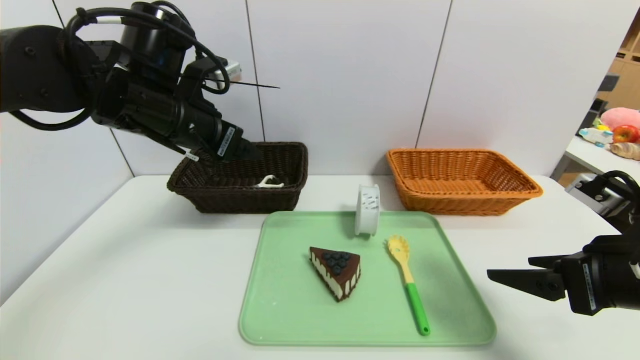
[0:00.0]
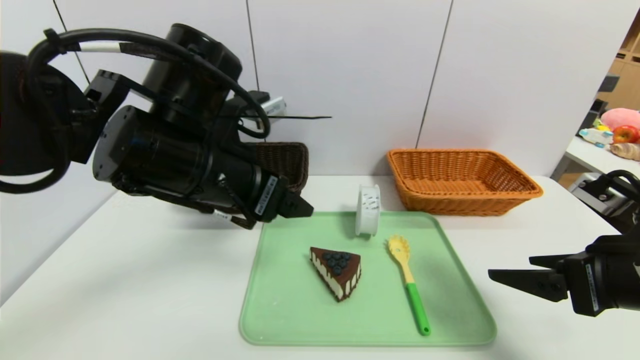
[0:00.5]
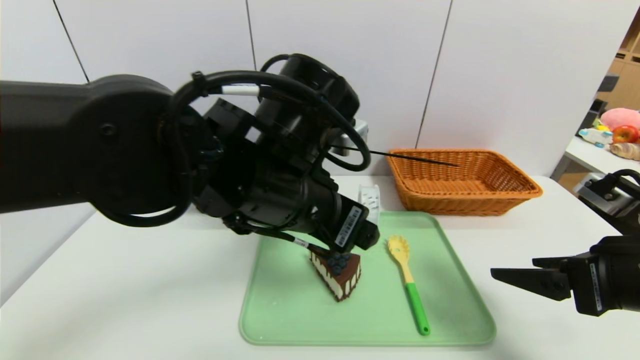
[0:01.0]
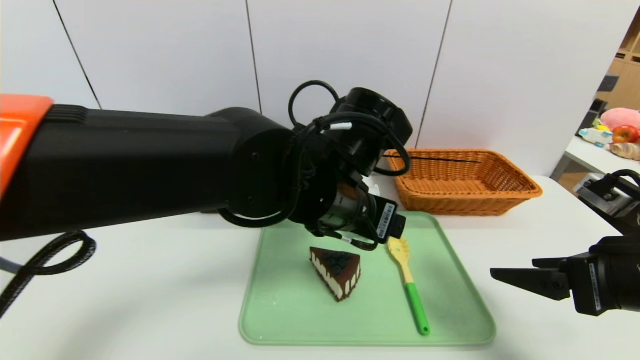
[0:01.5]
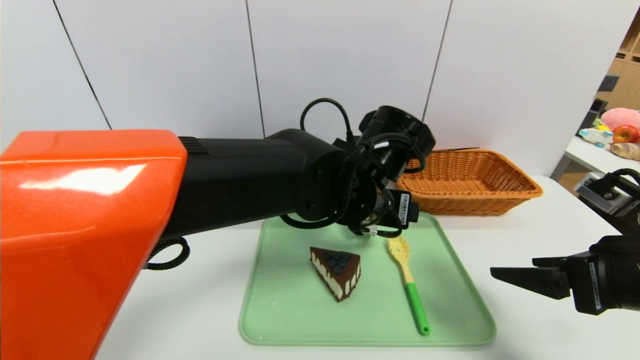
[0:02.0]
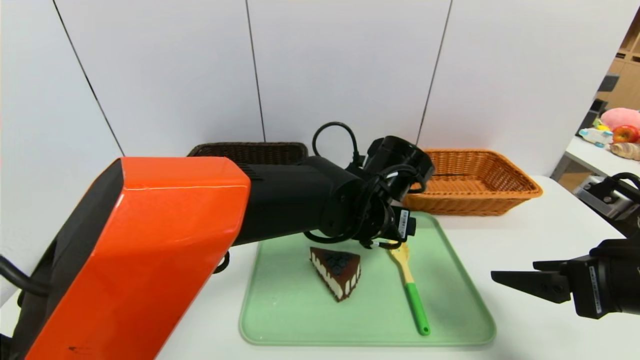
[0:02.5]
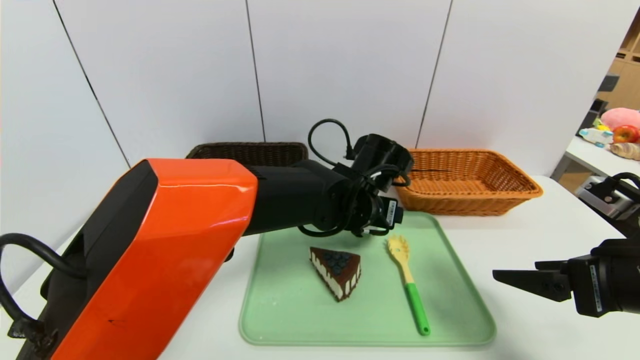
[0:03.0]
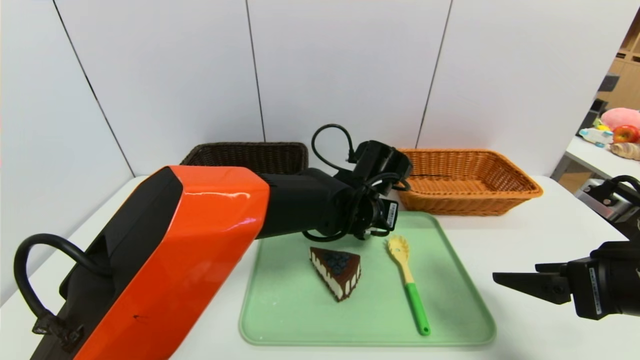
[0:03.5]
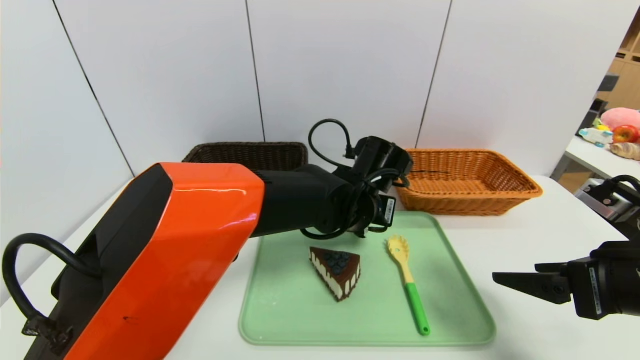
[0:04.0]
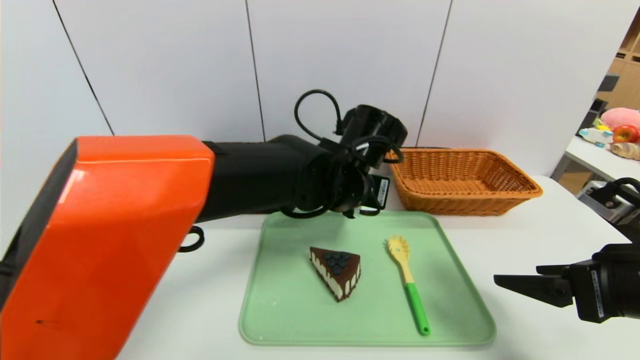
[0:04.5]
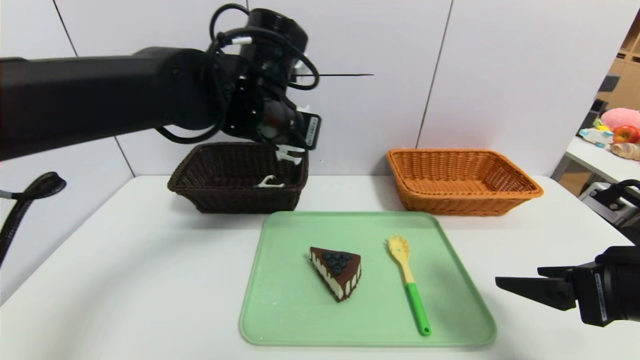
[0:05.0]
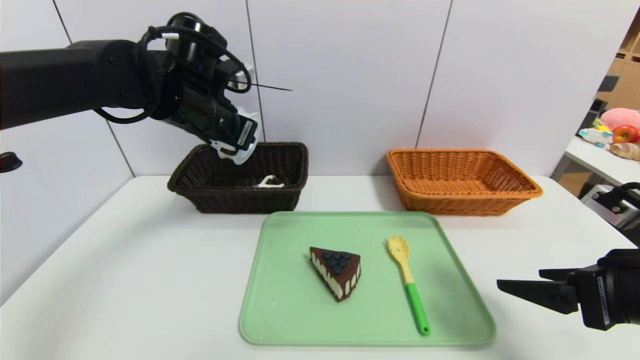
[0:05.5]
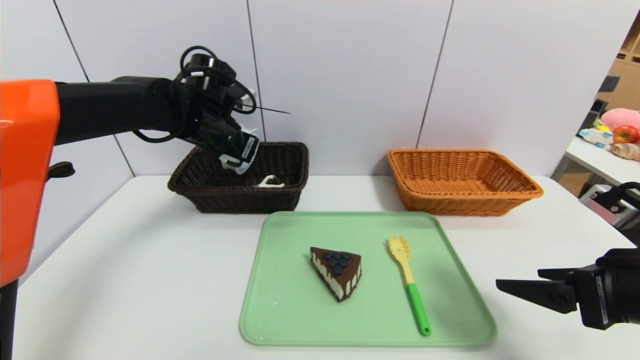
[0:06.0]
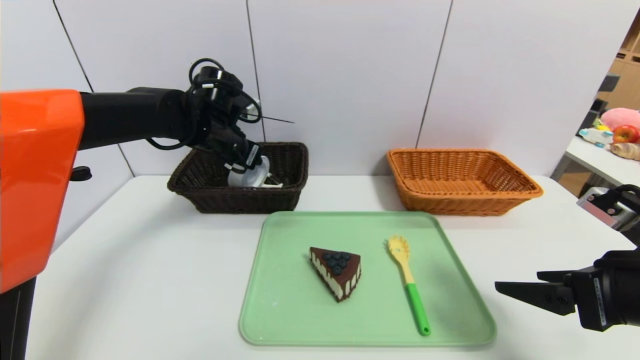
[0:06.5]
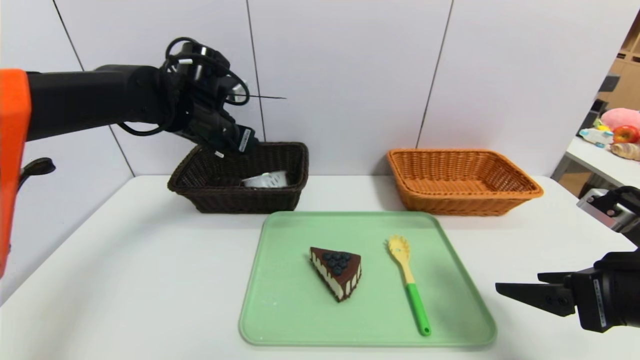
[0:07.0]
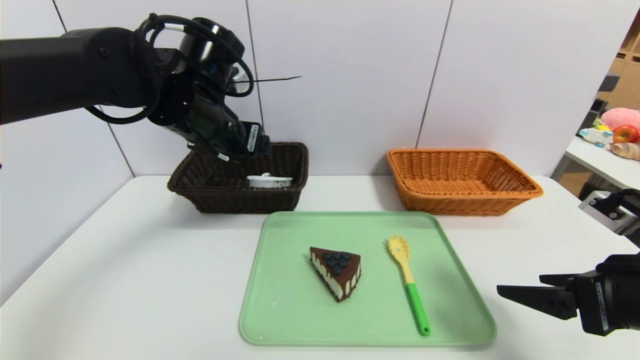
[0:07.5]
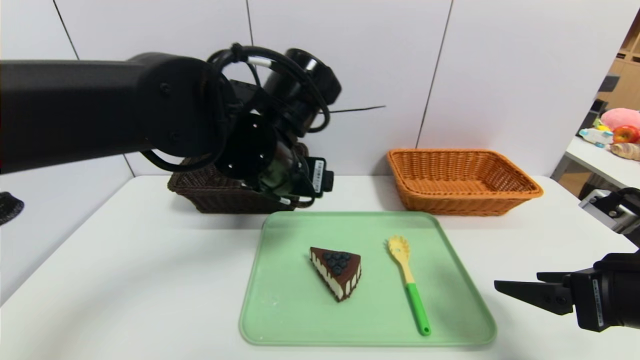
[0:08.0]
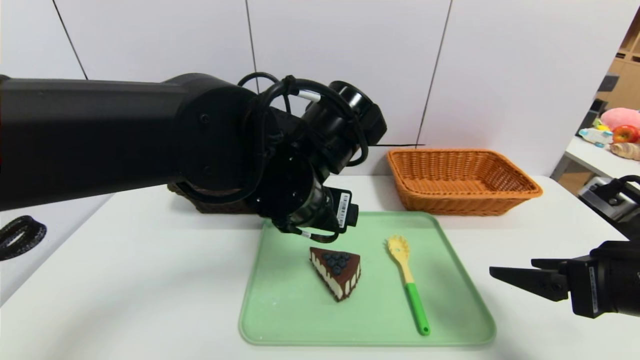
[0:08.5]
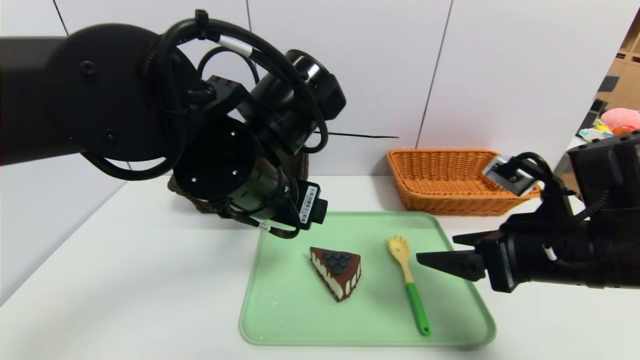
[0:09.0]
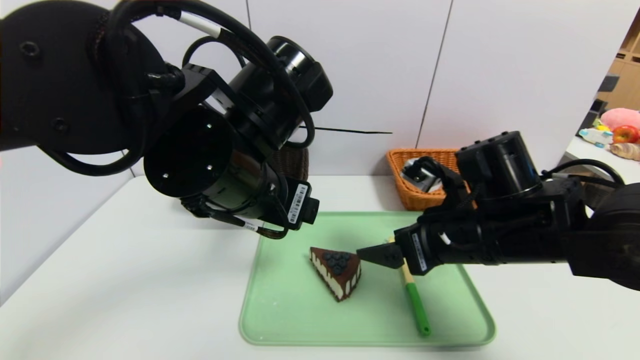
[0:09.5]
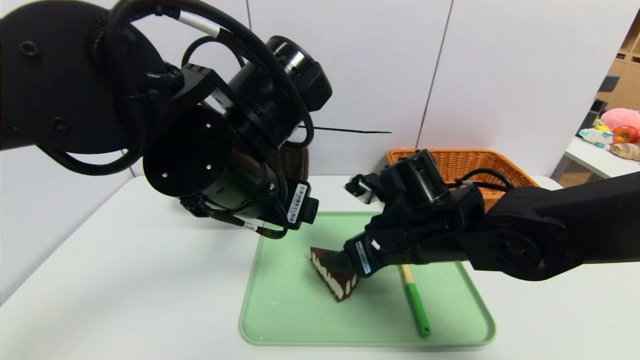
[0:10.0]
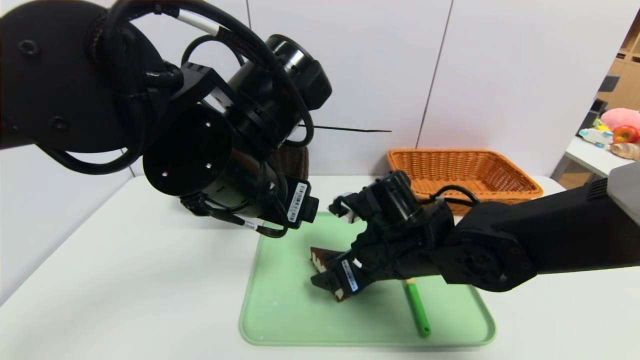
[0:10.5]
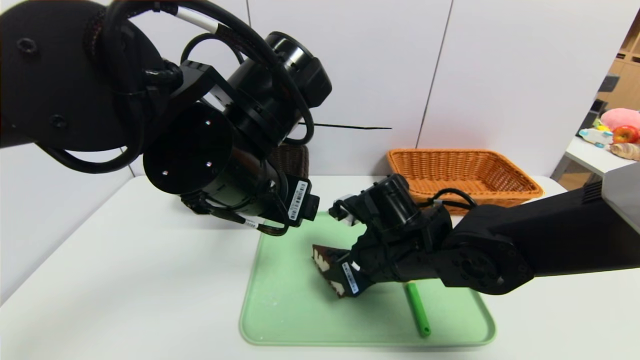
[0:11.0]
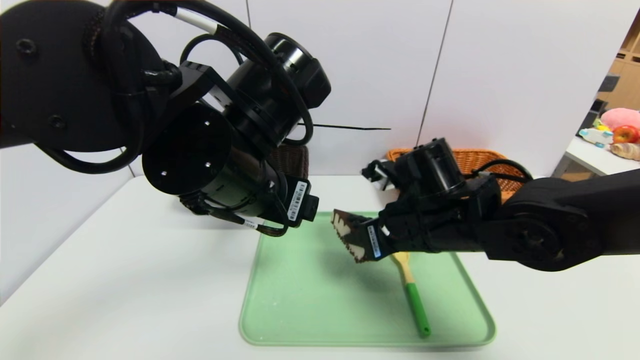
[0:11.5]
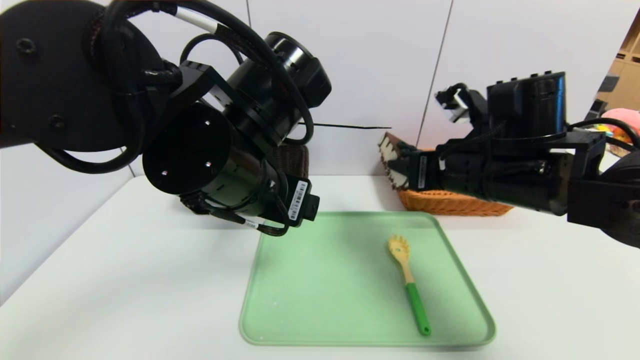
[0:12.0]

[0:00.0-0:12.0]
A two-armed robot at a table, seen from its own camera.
Task of the whole recording: place the food in the right basket with the right gripper, and place the non food items in the left basket with the left gripper.
Step, 0:00.0 to 0:07.0: Grasp the tape and put it in the left basket.
0:00.0 to 0:02.0: The left gripper shifts some 25 cm to the right.
0:02.0 to 0:04.0: The left gripper goes about 5 cm forward and downward, and closes its fingers.
0:04.0 to 0:06.0: The left gripper travels to the left by about 25 cm.
0:06.0 to 0:08.0: The left gripper heads backward and to the right, covering approximately 20 cm, and opens its fingers.
0:08.0 to 0:10.0: The left gripper changes place by about 5 cm; the right gripper is displaced to the left and forward by some 25 cm.
0:10.0 to 0:12.0: The right gripper heads upward and to the right, covering approximately 10 cm, and closes.

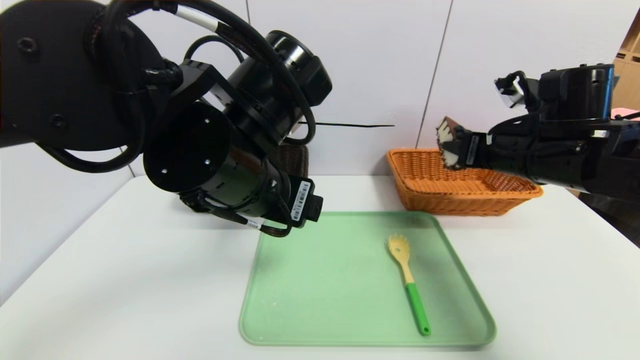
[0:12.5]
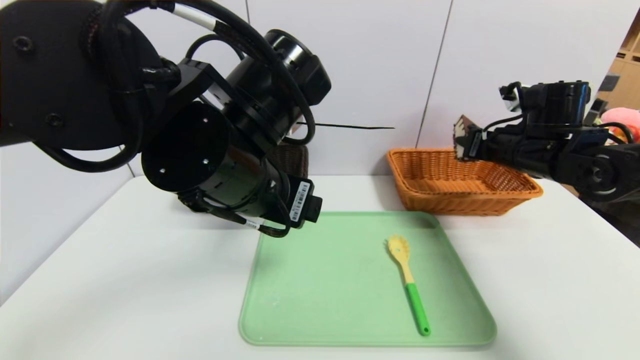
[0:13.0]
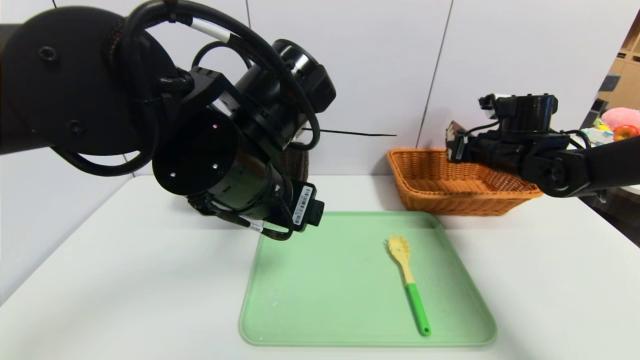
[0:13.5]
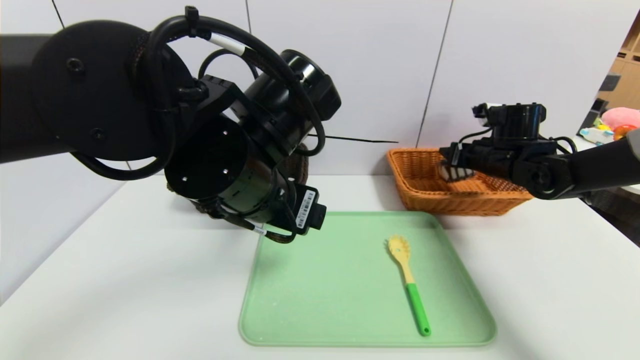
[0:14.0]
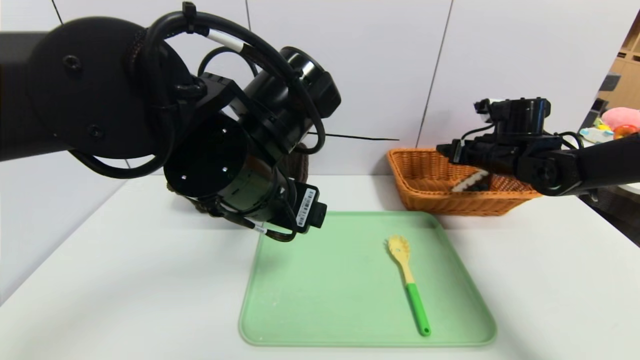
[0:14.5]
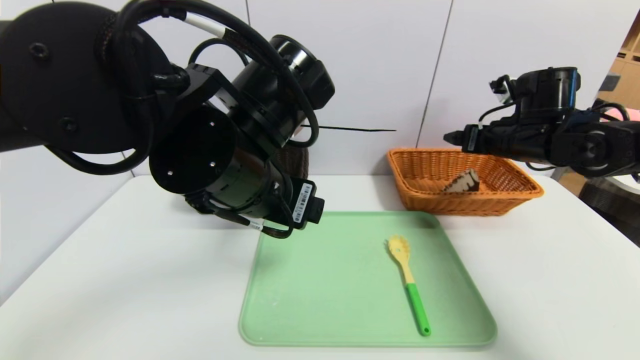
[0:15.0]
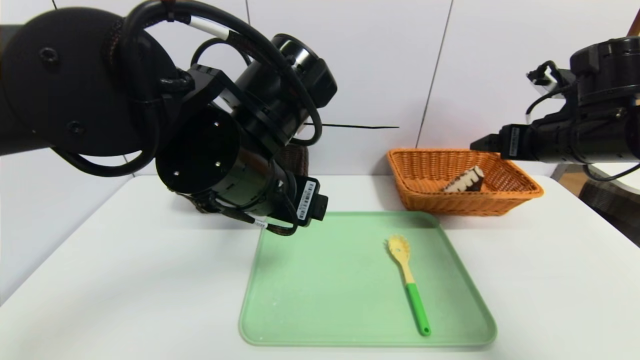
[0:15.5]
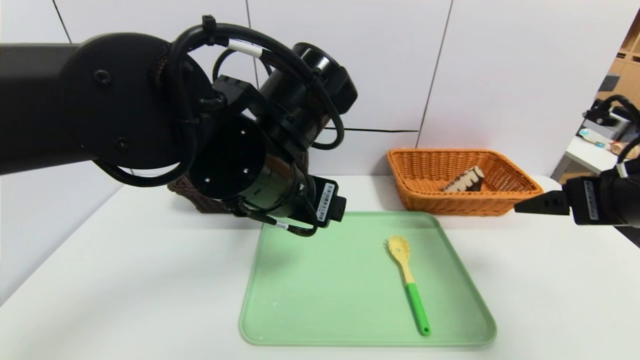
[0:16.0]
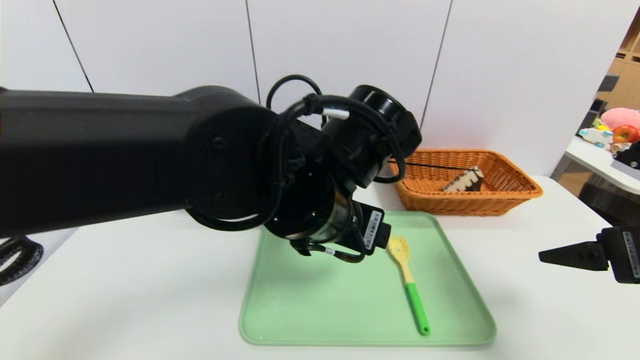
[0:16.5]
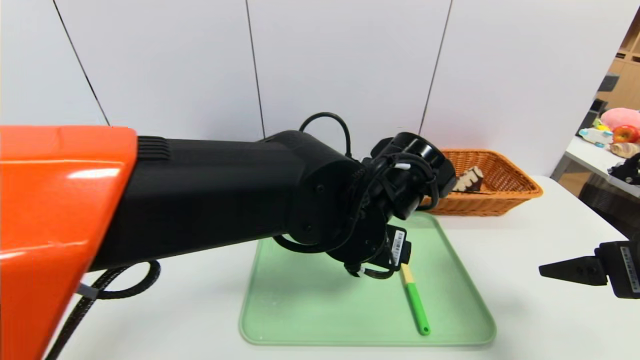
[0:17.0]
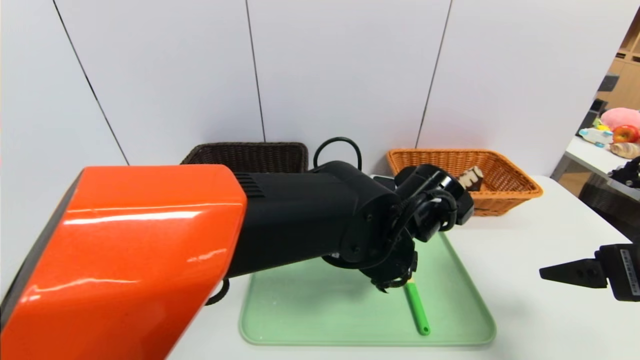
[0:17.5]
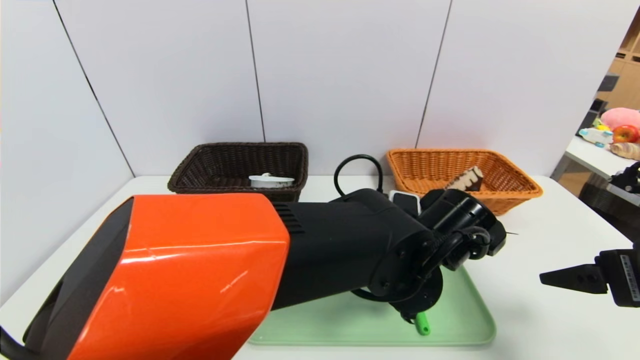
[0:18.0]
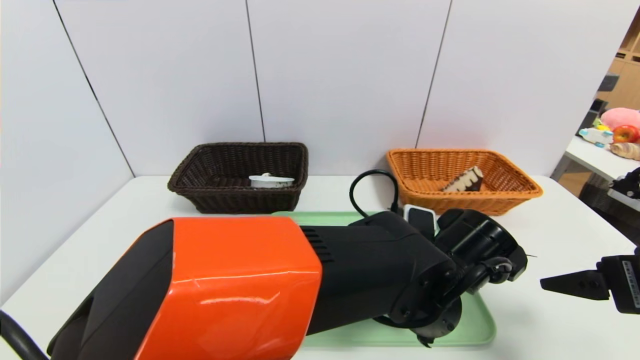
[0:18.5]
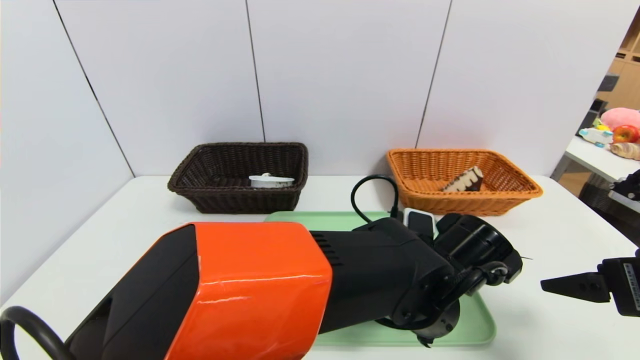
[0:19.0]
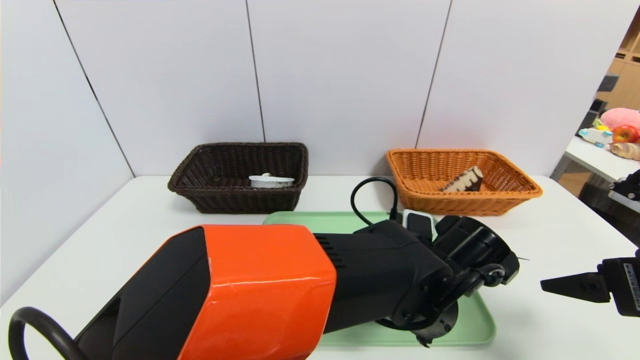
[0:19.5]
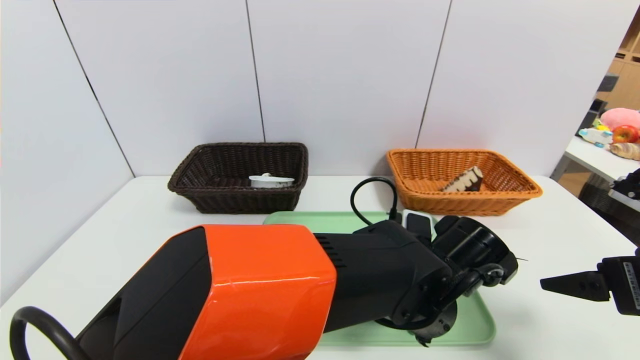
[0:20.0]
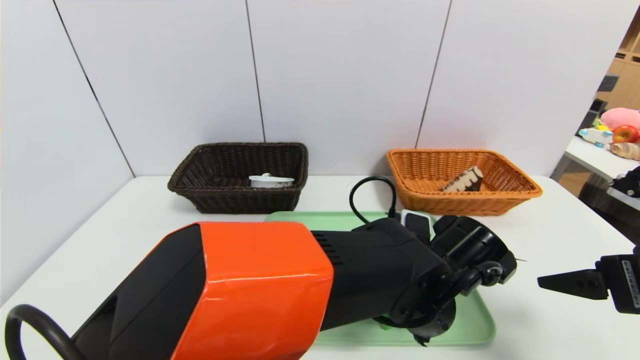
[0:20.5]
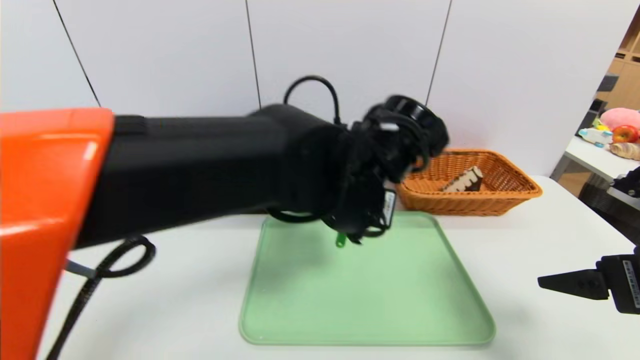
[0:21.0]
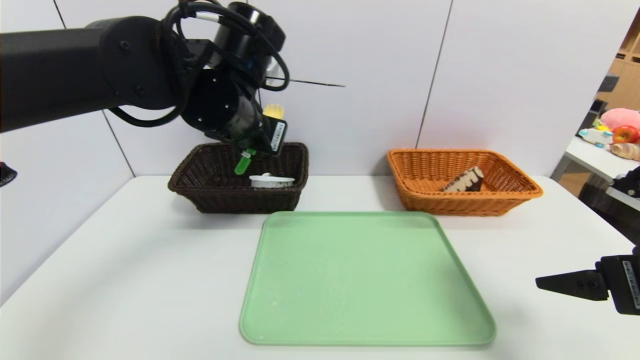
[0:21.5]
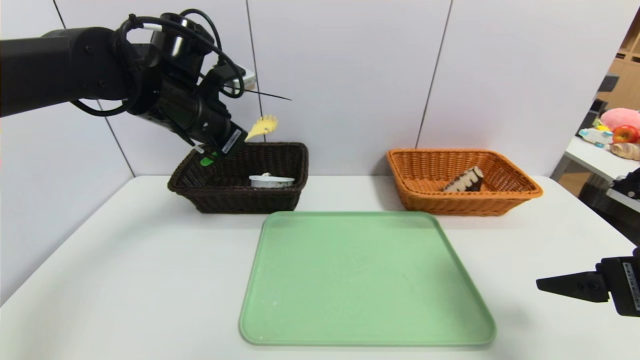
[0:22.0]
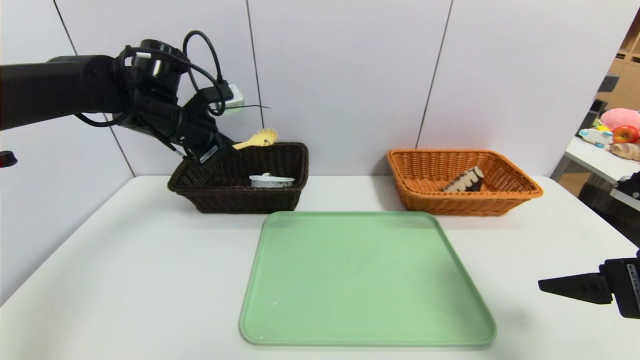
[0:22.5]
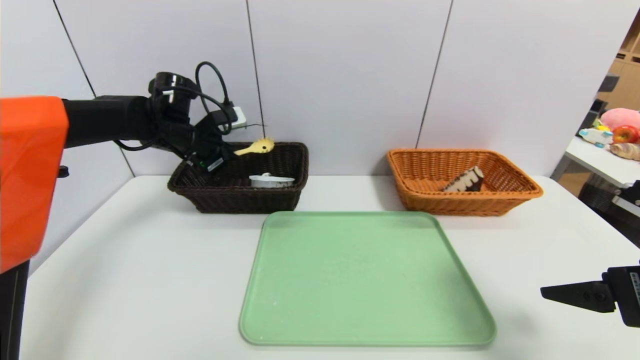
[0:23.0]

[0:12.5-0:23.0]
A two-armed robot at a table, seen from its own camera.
Task of the whole recording: place the food in the right basket with the right gripper, and place the non food items in the left basket with the left gripper.
Step, 0:12.5 to 0:15.0: Grasp the triangle cake and put it in the right basket.
0:12.5 to 0:14.5: The right gripper travels forward and downward by some 15 cm, and opens.
0:14.5 to 0:16.5: The left gripper goes some 5 cm to the right. Meanwhile the right gripper shifts approximately 25 cm backward.
0:16.5 to 0:19.0: The left gripper moves downward and to the right, approximately 15 cm.
0:19.0 to 0:21.0: The left gripper is displaced upward and to the left by about 15 cm, and closes.
0:21.0 to 0:23.0: The left gripper shifts approximately 35 cm to the left and forward.
